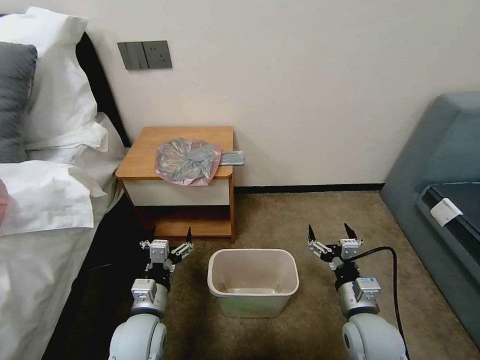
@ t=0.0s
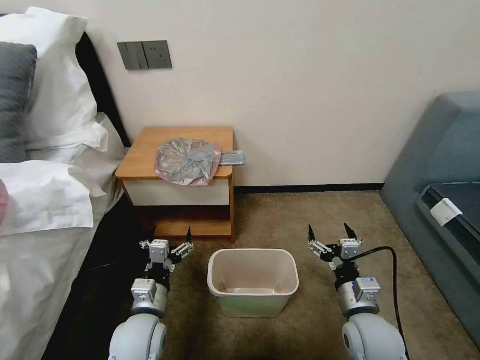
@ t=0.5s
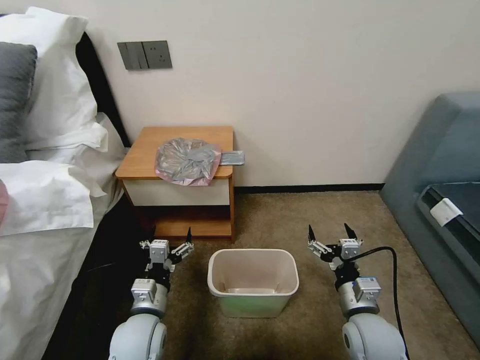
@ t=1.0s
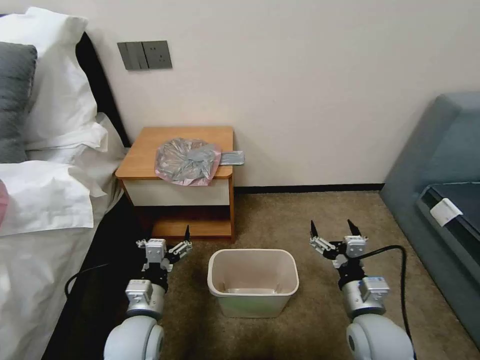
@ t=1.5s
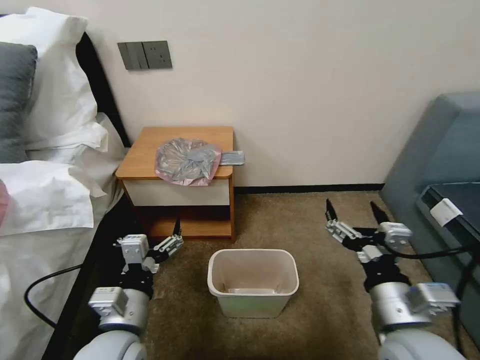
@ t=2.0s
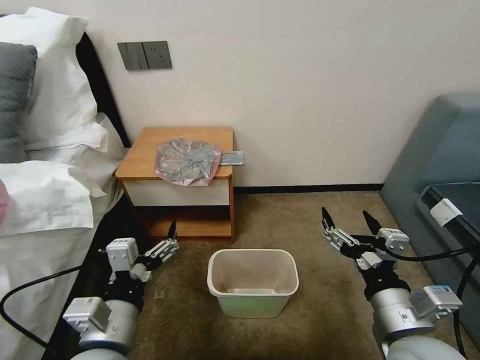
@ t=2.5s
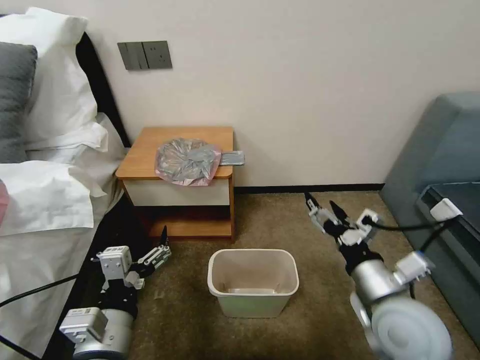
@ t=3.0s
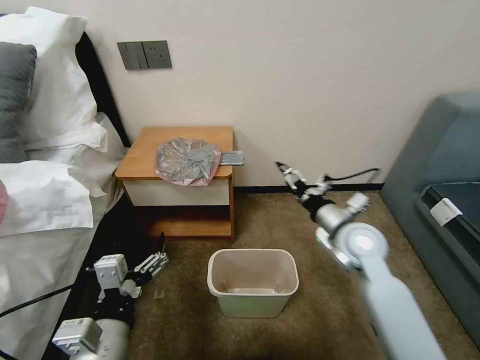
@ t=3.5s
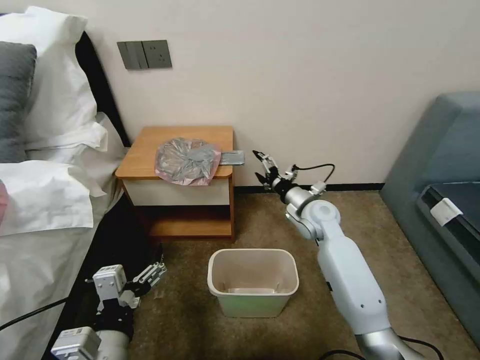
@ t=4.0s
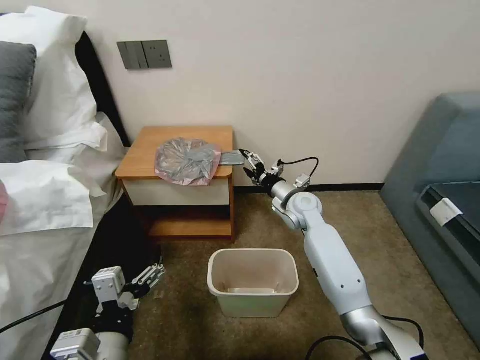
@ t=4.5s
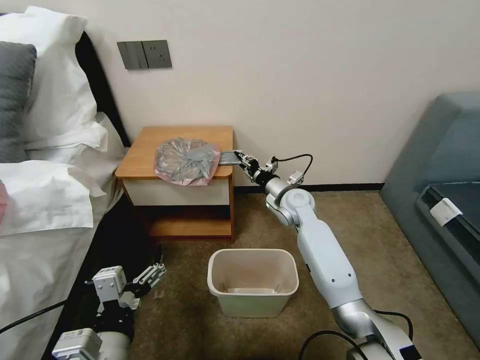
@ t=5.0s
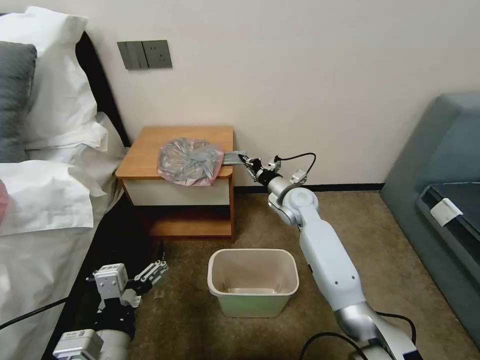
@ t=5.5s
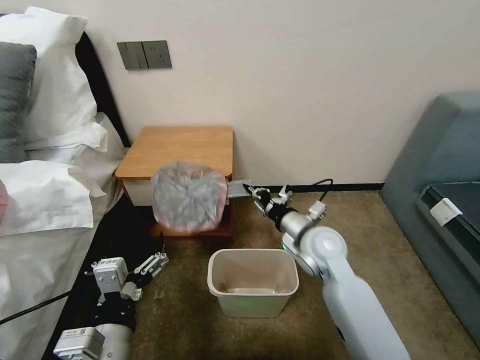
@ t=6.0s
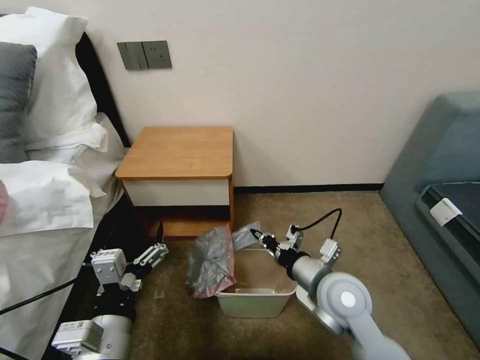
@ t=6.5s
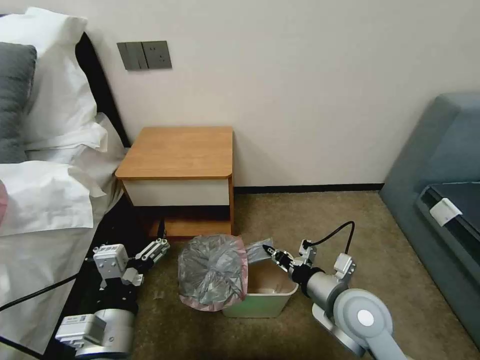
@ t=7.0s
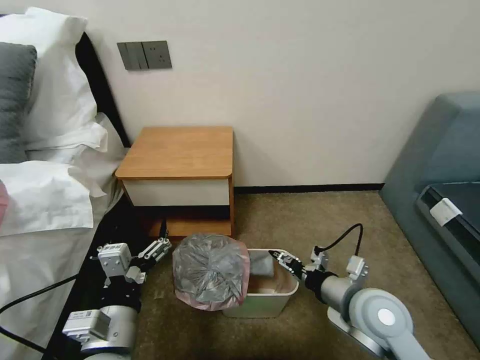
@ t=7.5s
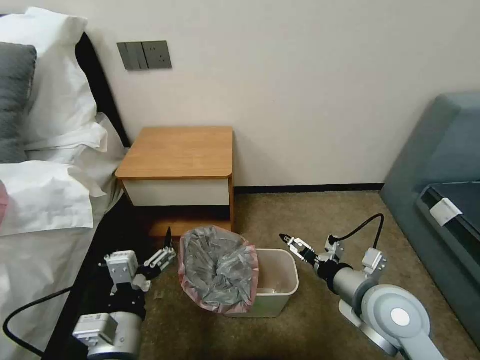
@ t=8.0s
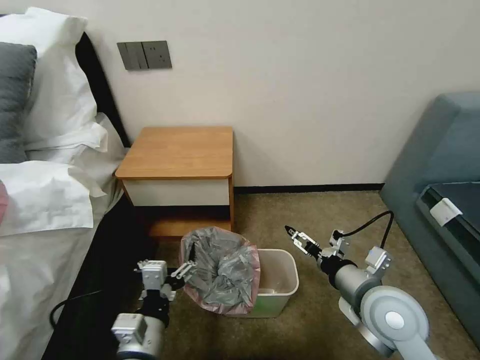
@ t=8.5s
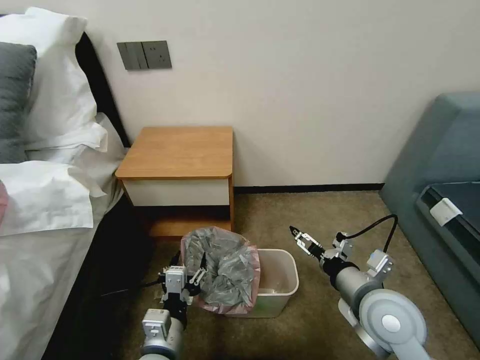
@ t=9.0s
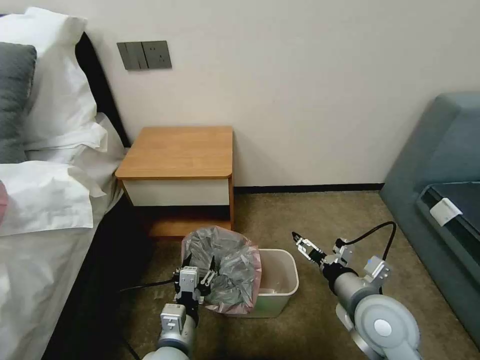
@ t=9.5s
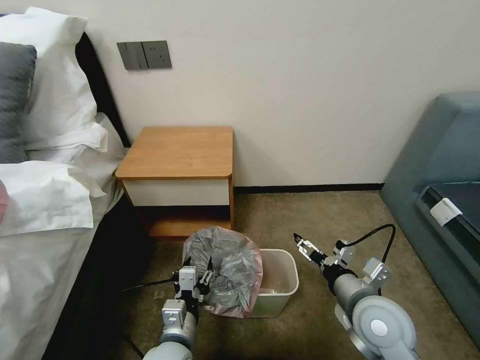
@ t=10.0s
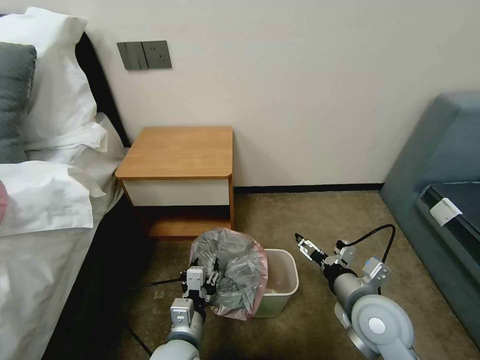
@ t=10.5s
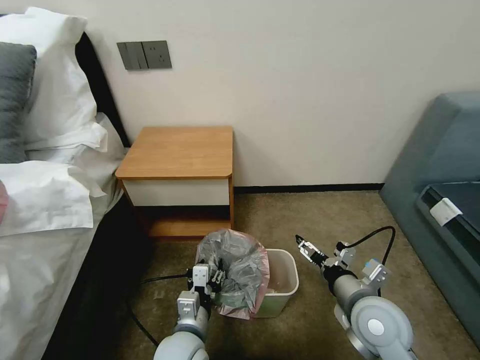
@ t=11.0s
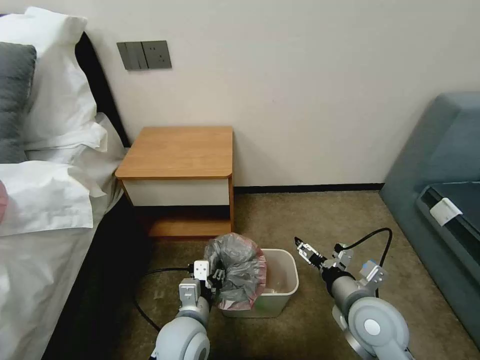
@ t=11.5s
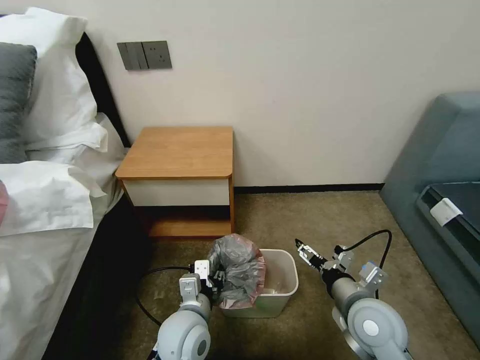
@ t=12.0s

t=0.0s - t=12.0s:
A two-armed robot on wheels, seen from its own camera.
Task of the whole recording: Pick up the garbage bag from the table and place it over the trash can.
t=2.0s - t=4.0s: The right gripper travels forward by about 30 cm. The left gripper travels backward by some 5 cm.
t=4.0s - t=6.0s: The right gripper is displaced backward by approximately 10 cm, and closes up.
t=6.0s - t=8.0s: The right gripper heads backward and to the right, covering about 15 cm, and opens its fingers.
t=8.0s - t=10.0s: The left gripper heads downward and to the right, covering approximately 10 cm, and closes.
t=10.0s - t=12.0s: The left gripper shifts by about 5 cm.

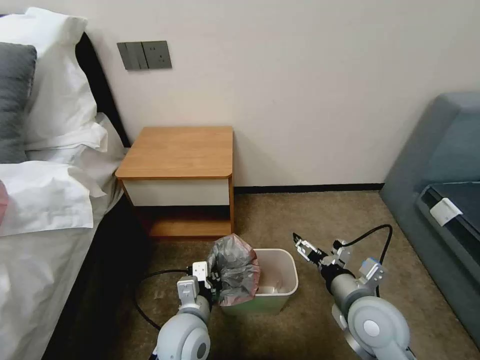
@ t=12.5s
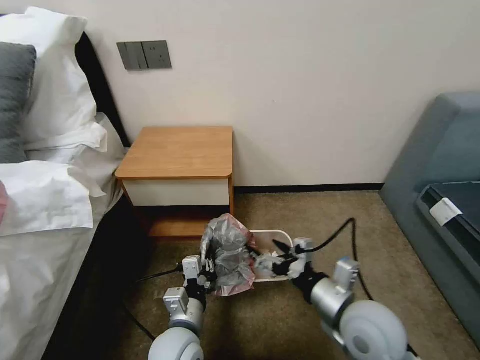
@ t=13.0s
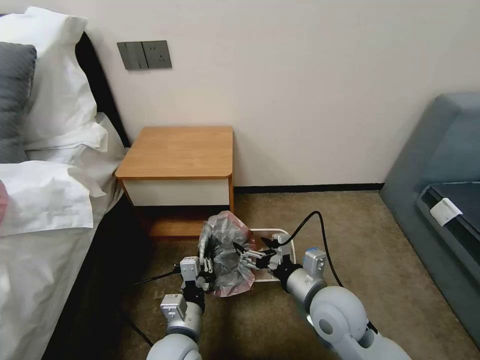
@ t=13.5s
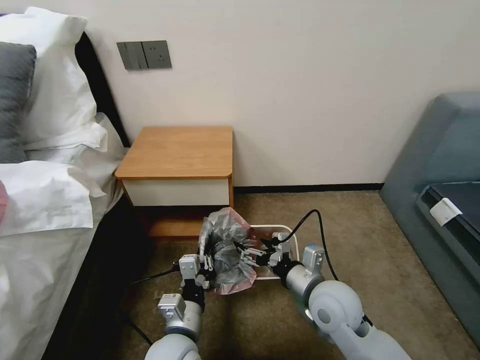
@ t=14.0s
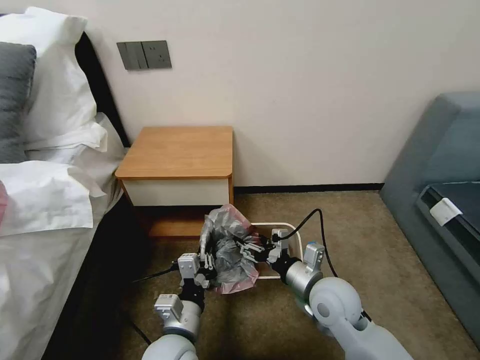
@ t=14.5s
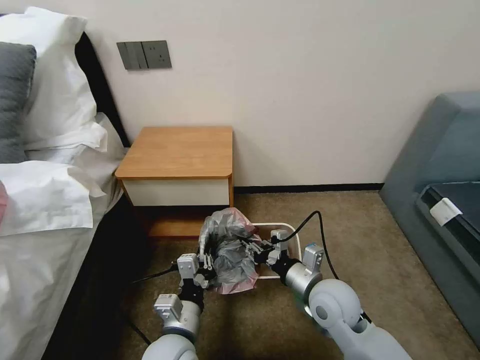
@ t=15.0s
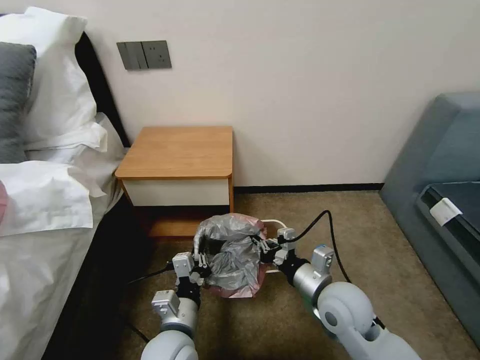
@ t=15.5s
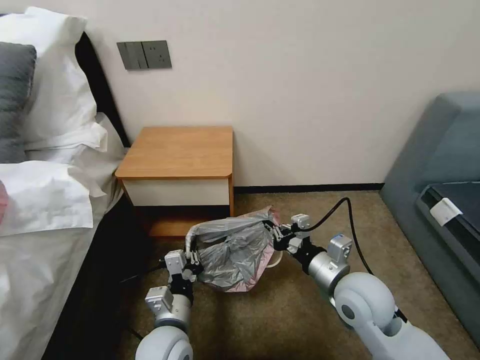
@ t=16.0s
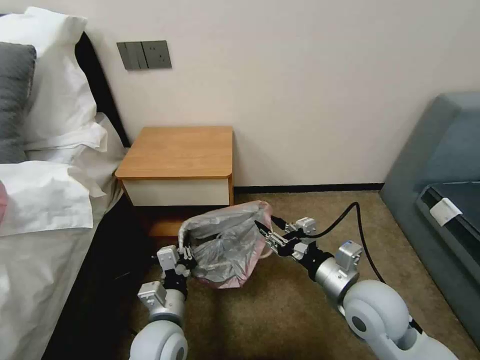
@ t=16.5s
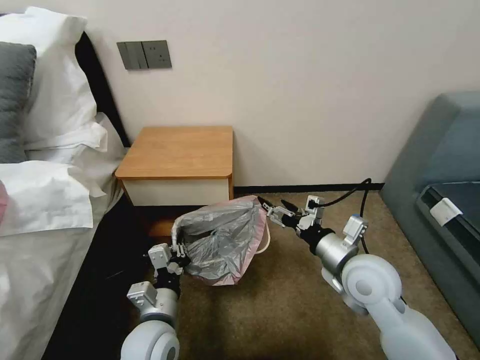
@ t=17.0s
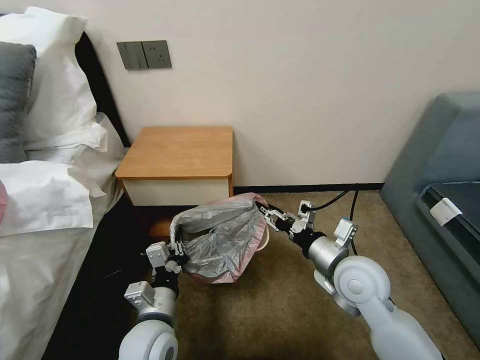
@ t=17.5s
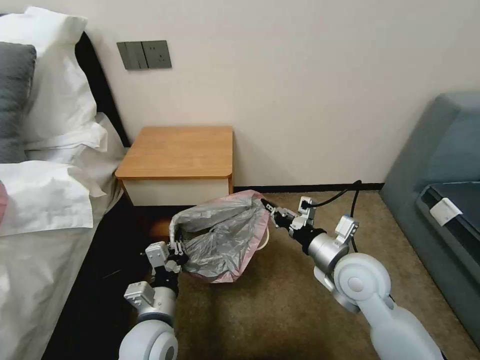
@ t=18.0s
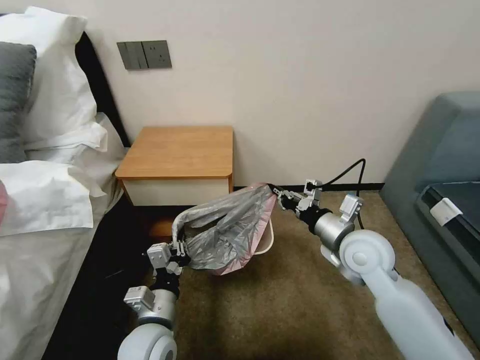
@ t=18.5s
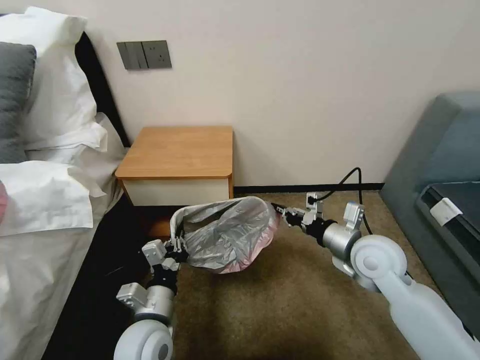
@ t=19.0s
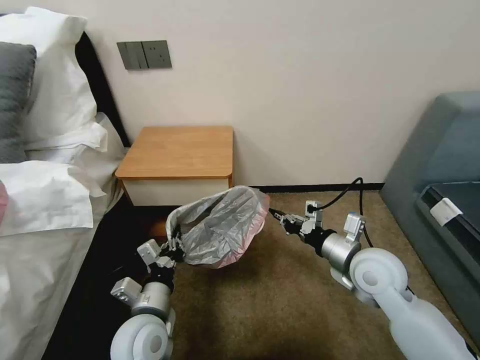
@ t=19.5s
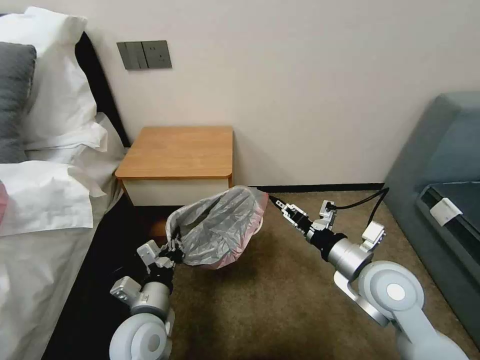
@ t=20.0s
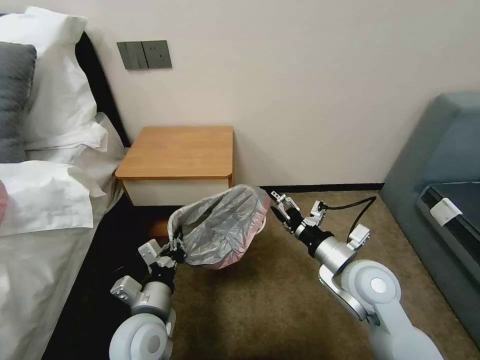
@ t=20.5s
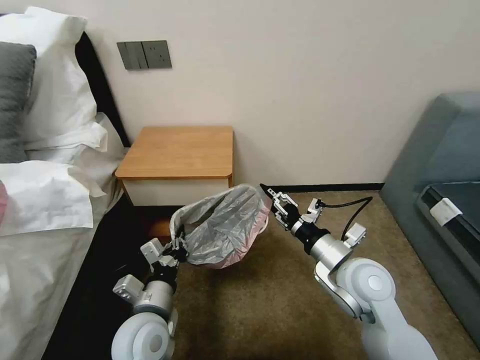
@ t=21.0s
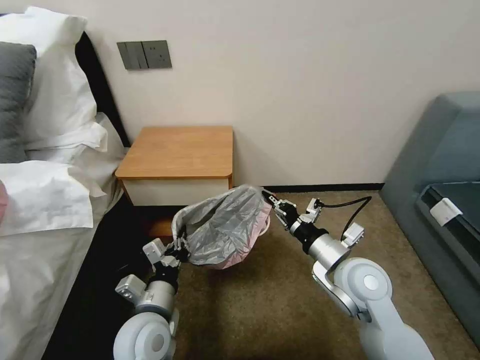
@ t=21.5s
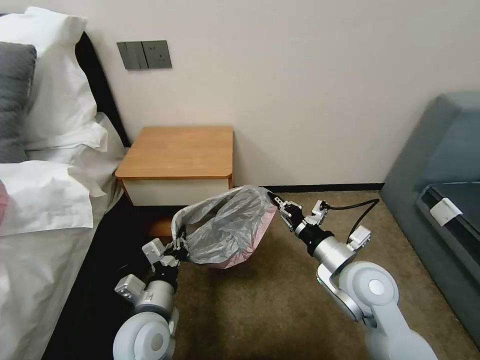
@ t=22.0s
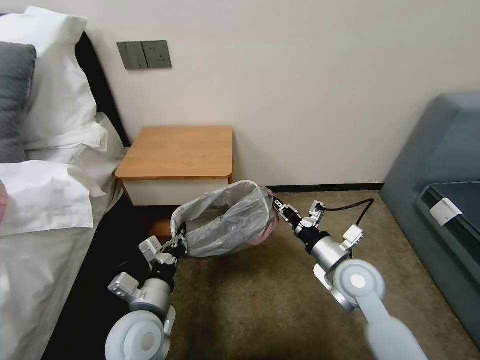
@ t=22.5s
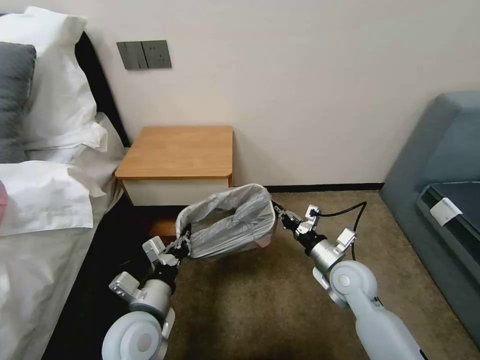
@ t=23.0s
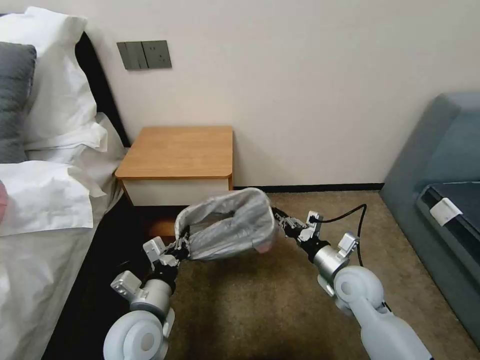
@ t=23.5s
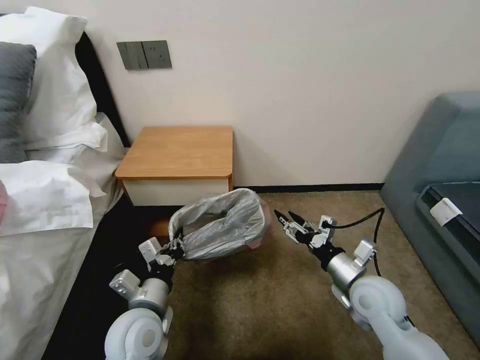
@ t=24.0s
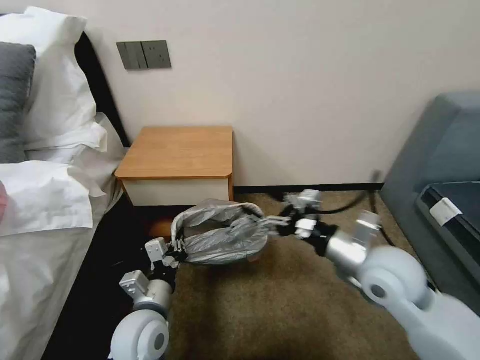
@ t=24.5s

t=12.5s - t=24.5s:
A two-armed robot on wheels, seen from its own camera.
Task of the whole recording: Pick up the garbage bag from the table and place it over the trash can.
t=12.5s - t=14.5s: The right gripper moves to the left, roughly 5 cm.
t=14.5s - t=16.5s: The right gripper moves upward, approximately 5 cm, and closes up.
t=16.5s - t=18.5s: The right gripper shifts roughly 10 cm forward, and closes.
t=18.5s - t=20.5s: The right gripper shifts some 5 cm backward, and opens its fingers.
t=20.5s - t=22.5s: The right gripper closes.
t=22.5s - t=24.5s: The right gripper travels upward by some 10 cm, and opens its fingers.

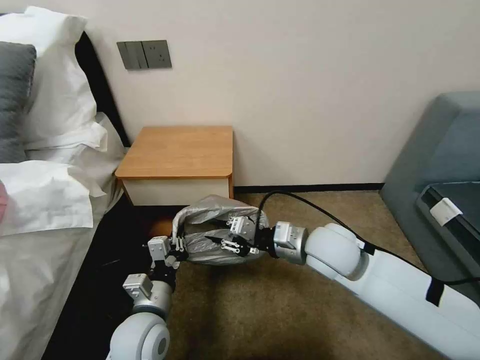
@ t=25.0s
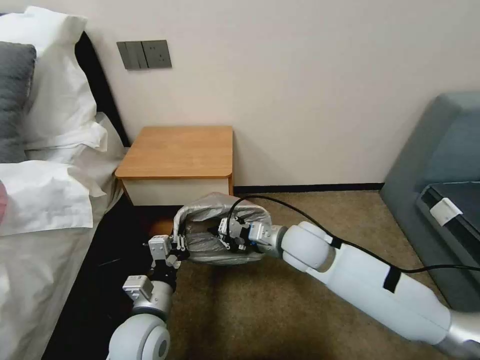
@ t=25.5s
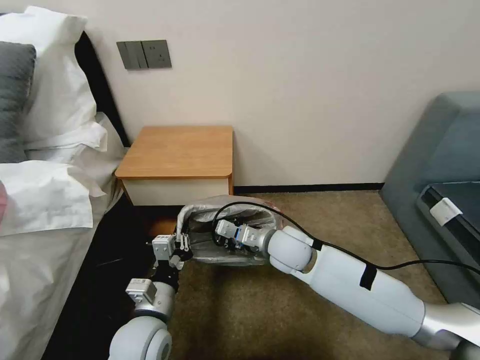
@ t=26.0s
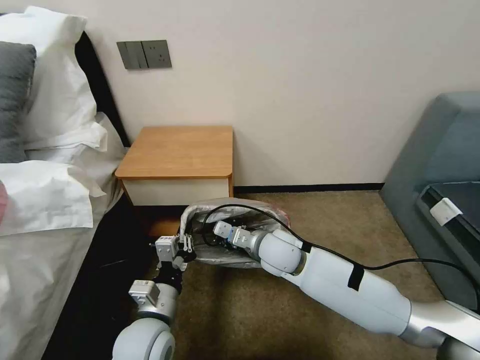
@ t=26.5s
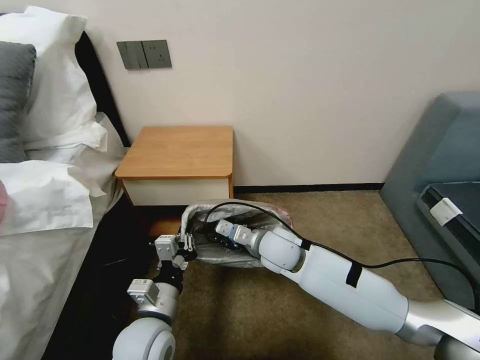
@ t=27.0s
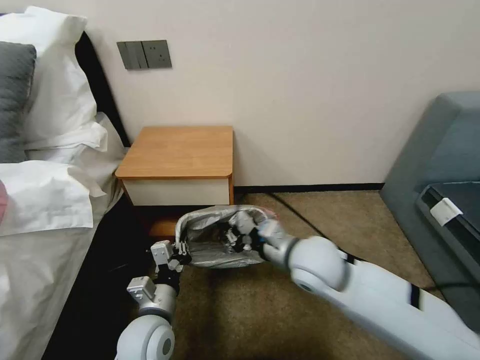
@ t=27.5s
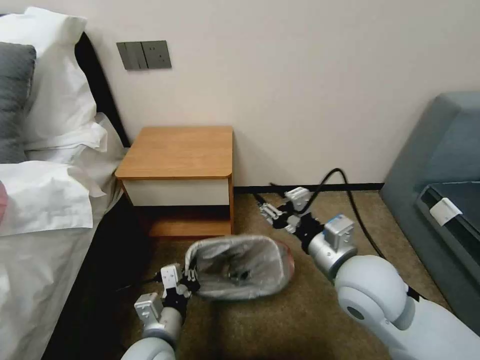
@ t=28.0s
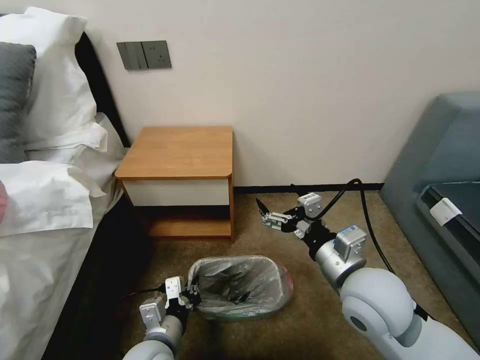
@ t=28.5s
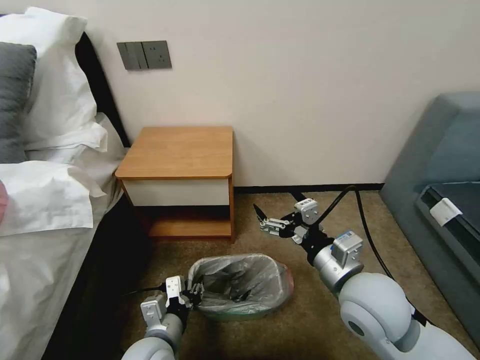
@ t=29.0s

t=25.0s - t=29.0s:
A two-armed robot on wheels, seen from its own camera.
Task of the whole recording: Pick up the garbage bag from the table and place it over the trash can.
t=25.0s - t=27.0s: The right gripper travels downward and to the left by about 10 cm.
t=27.0s - t=29.0s: The left gripper opens. Meanwhile the right gripper is displaced backward, to the right and upward by roughly 20 cm, and opens up.
